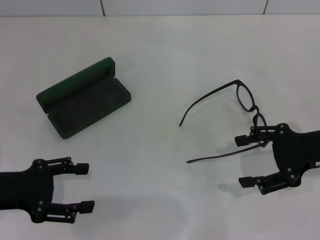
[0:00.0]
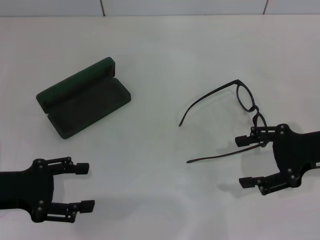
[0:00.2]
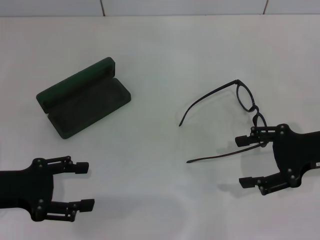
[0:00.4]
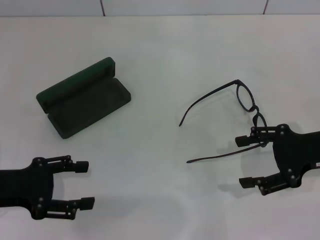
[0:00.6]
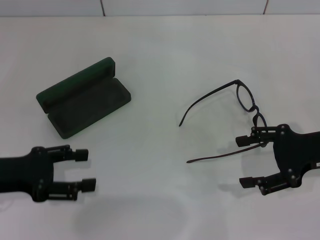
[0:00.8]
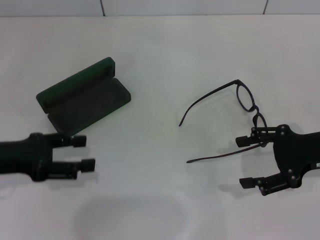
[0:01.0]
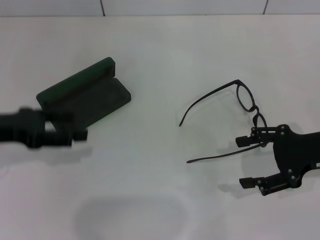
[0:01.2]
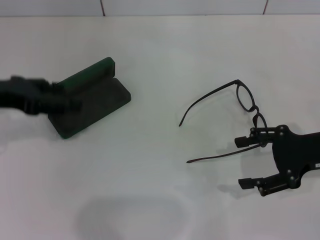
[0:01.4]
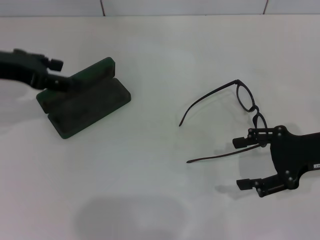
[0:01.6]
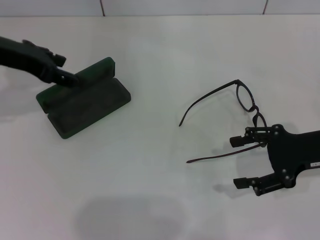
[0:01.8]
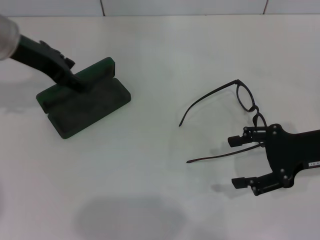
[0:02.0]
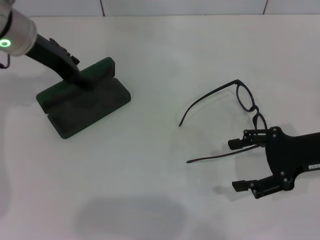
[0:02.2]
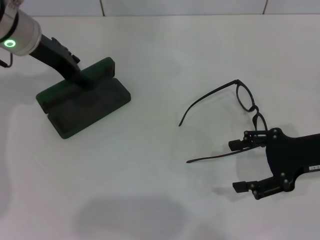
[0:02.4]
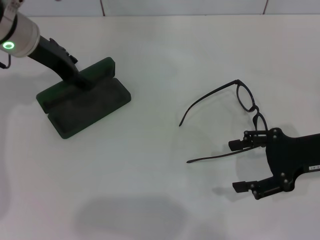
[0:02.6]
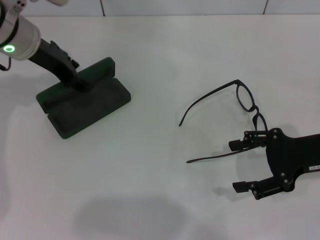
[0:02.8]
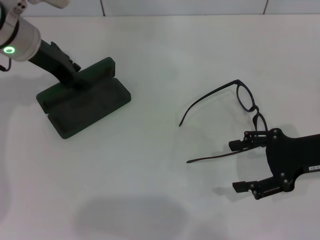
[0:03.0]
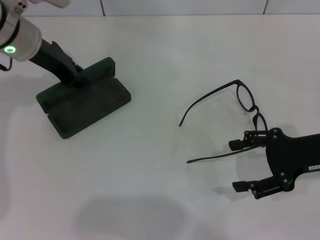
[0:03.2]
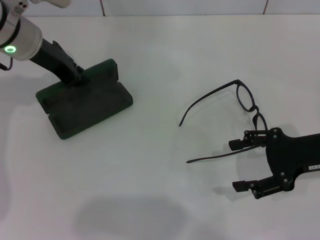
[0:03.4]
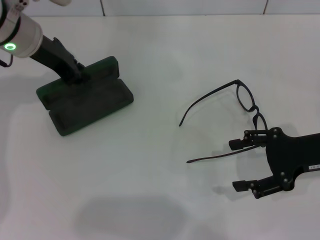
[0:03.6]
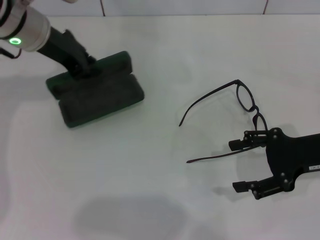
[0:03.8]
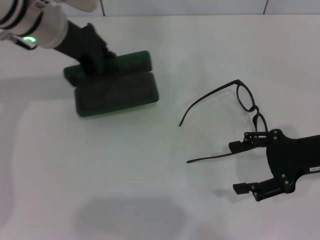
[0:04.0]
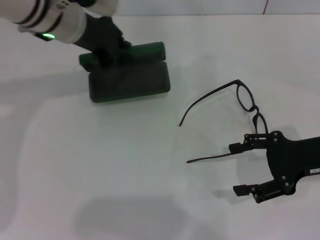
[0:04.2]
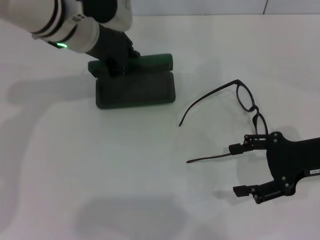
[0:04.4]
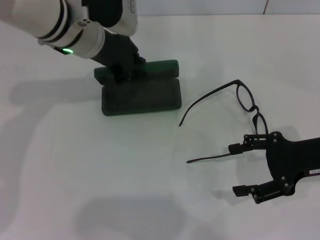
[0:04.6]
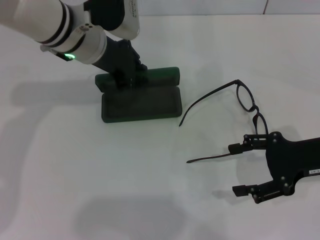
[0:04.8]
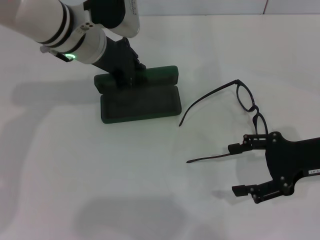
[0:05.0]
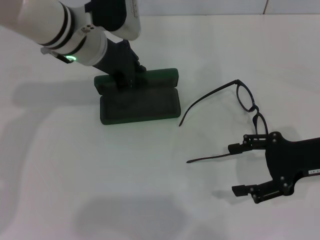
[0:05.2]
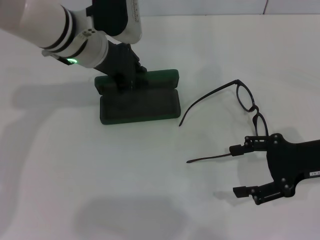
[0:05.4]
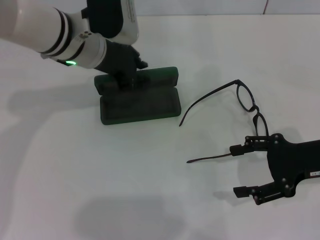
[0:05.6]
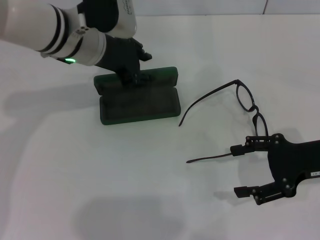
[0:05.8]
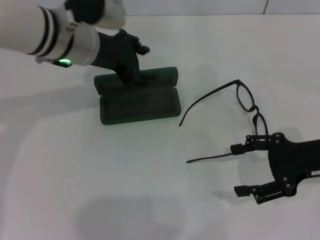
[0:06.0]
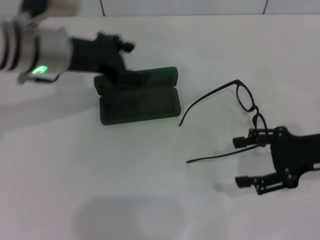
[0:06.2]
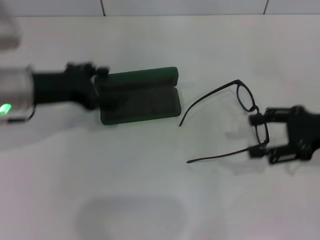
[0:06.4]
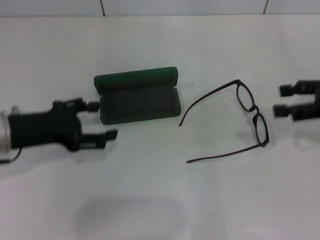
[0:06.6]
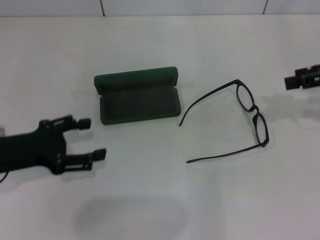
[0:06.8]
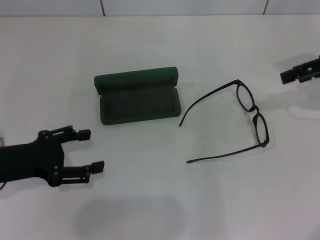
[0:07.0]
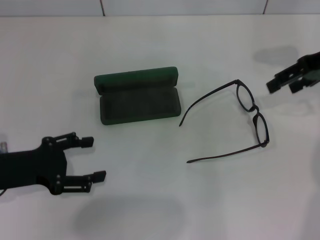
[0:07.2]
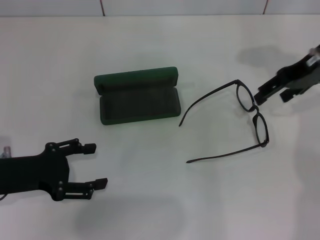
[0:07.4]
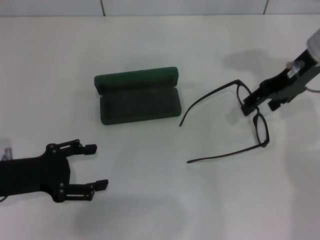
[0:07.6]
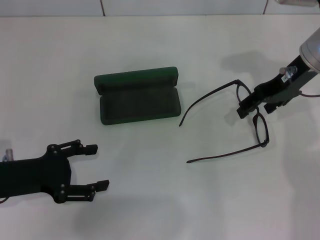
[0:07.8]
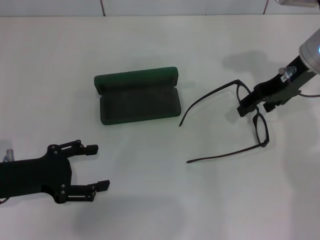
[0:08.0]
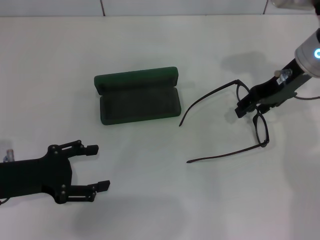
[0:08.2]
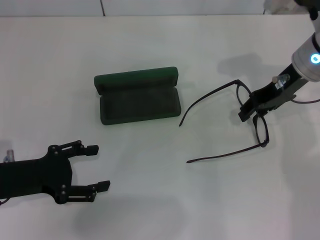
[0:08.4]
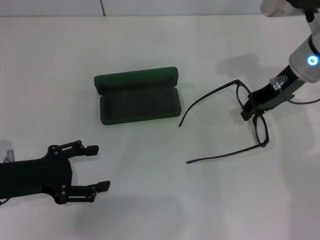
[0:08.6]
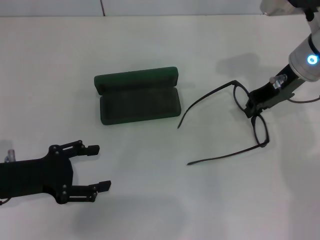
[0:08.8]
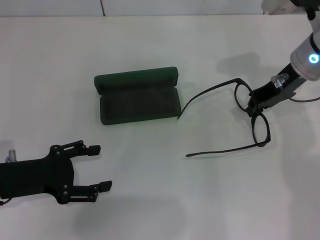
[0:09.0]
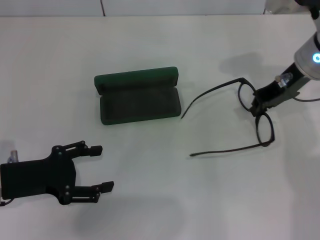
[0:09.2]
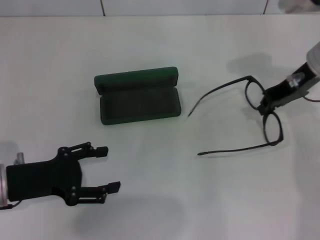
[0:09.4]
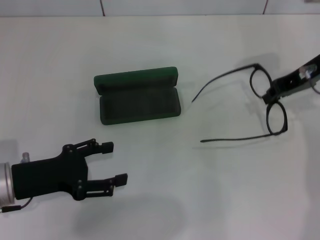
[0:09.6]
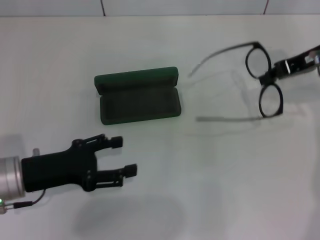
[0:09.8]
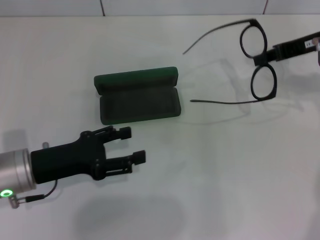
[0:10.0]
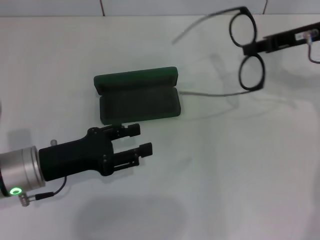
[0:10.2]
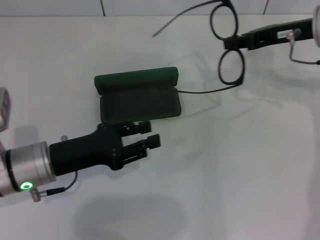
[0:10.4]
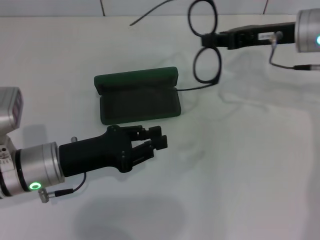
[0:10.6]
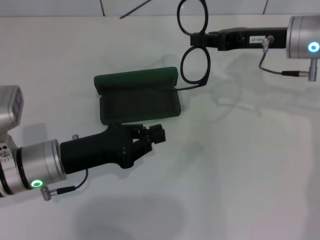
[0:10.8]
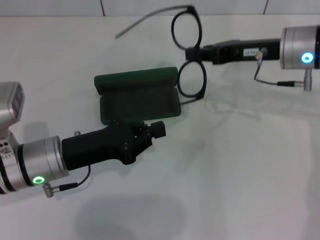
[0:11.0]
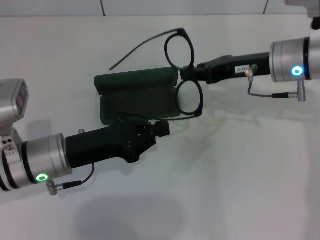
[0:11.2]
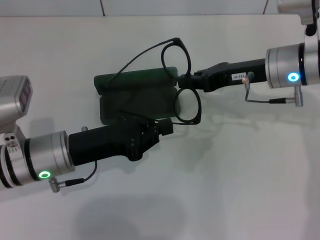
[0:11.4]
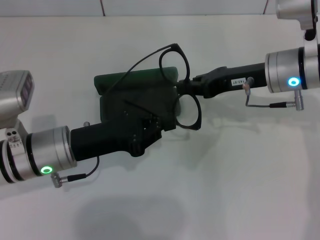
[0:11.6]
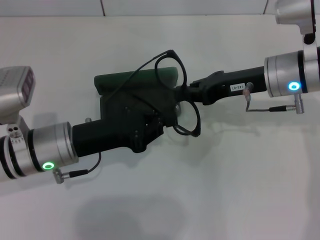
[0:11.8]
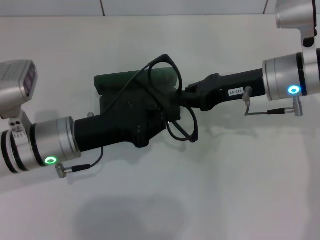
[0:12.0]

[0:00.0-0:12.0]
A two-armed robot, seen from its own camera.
Step, 0:00.0 to 0:03.2: Grab the glasses case with your left hand.
Step, 0:03.6 to 0:05.4: Place the glasses case in the center of the table with your left hand.
Step, 0:05.6 to 0:08.8: Grab the eyeglass frame with your right hand.
0:00.0 to 0:01.6: The left gripper moves forward and upward, about 15 cm.
0:01.6 to 0:03.0: The left gripper goes roughly 10 cm forward and to the right.
0:03.0 to 0:04.4: The left gripper moves to the right, about 5 cm, and closes.
0:04.4 to 0:06.0: There are only small adjustments of the grippers.
0:06.0 to 0:07.6: The left gripper shifts approximately 25 cm backward, to the left and downward, and opens up. The right gripper heads forward, upward and to the left, covering about 15 cm.
0:07.6 to 0:09.0: The right gripper closes up.
0:09.0 to 0:10.4: The left gripper travels to the right by roughly 5 cm.
0:10.4 to 0:12.0: The right gripper is displaced to the left and downward by about 10 cm. Meanwhile the left gripper closes.

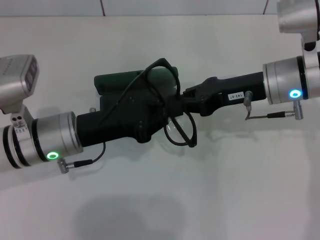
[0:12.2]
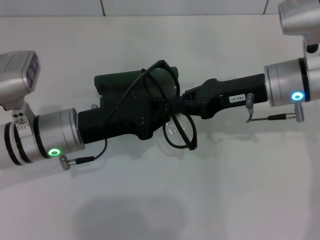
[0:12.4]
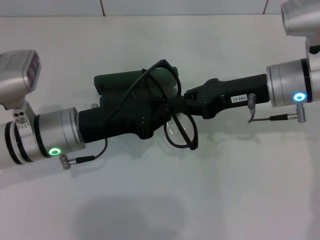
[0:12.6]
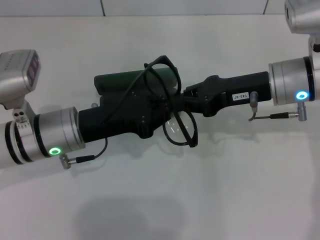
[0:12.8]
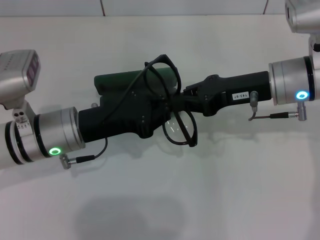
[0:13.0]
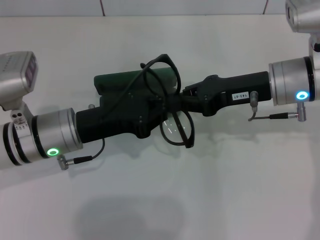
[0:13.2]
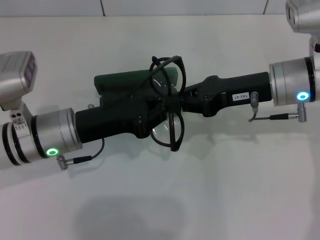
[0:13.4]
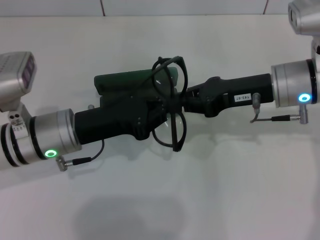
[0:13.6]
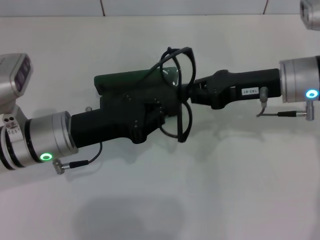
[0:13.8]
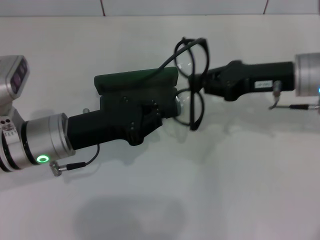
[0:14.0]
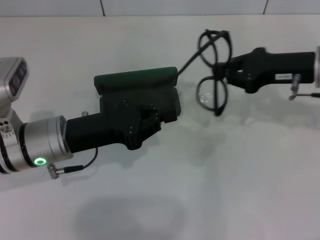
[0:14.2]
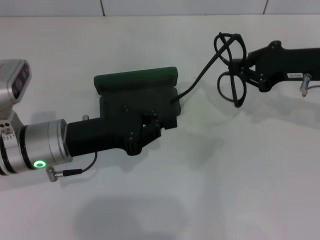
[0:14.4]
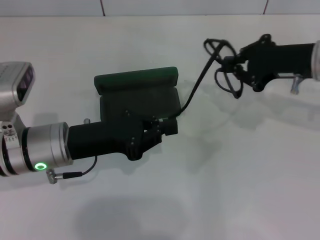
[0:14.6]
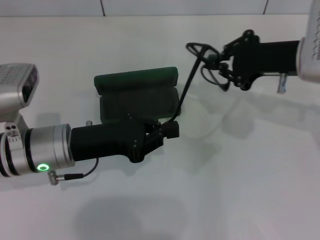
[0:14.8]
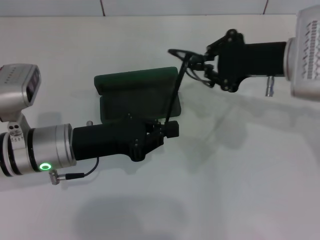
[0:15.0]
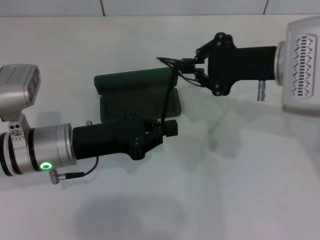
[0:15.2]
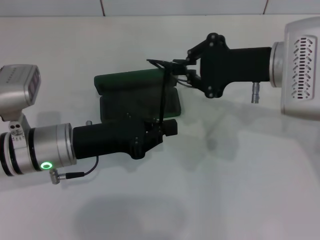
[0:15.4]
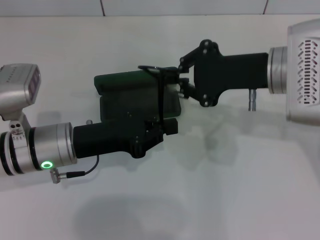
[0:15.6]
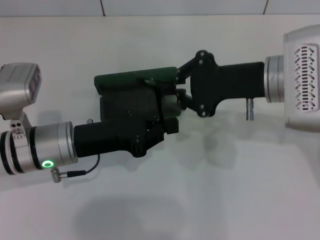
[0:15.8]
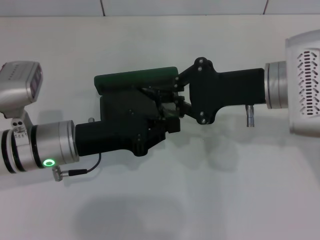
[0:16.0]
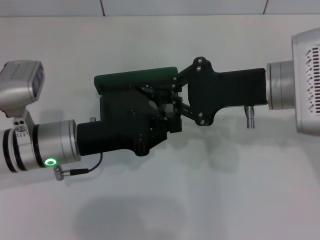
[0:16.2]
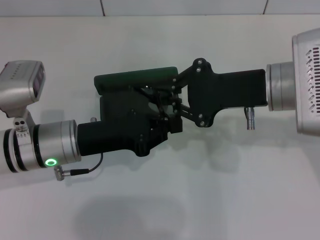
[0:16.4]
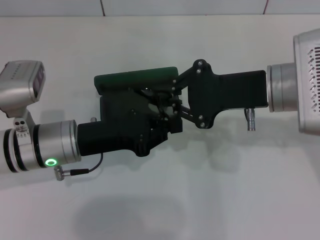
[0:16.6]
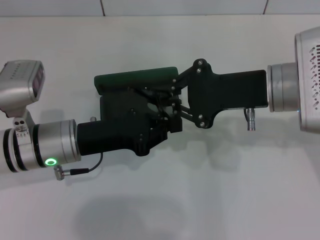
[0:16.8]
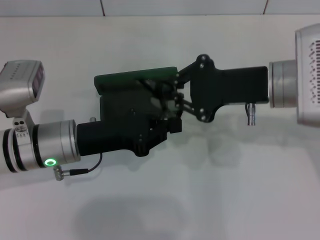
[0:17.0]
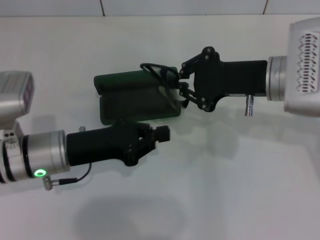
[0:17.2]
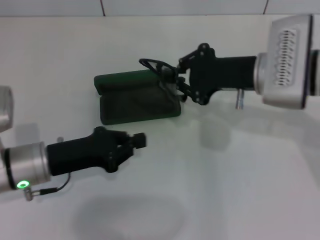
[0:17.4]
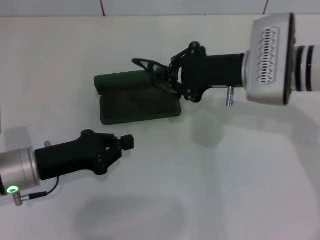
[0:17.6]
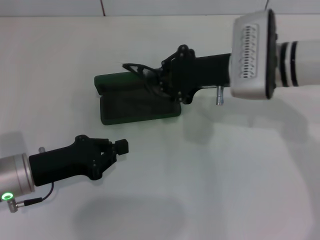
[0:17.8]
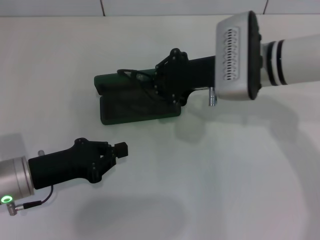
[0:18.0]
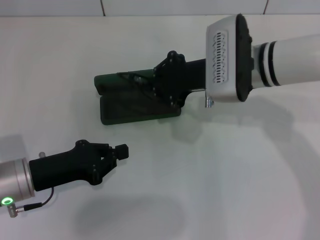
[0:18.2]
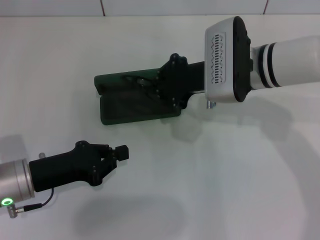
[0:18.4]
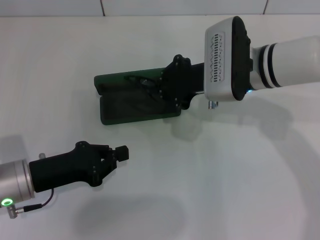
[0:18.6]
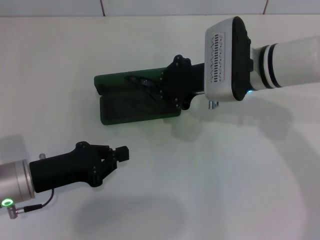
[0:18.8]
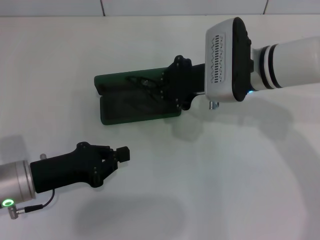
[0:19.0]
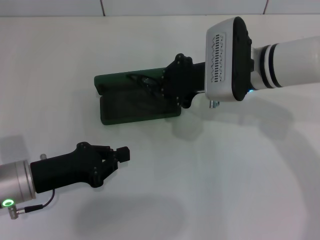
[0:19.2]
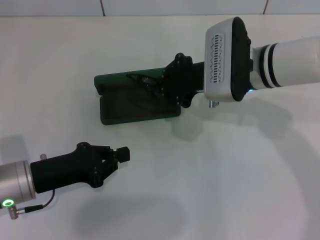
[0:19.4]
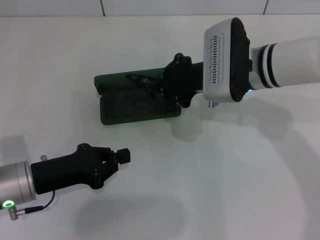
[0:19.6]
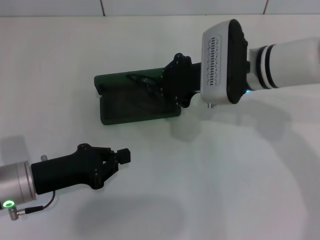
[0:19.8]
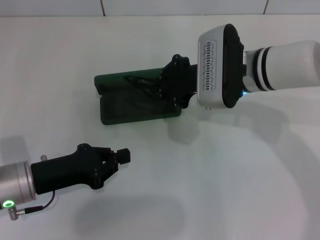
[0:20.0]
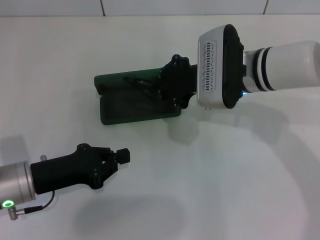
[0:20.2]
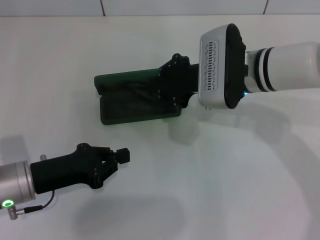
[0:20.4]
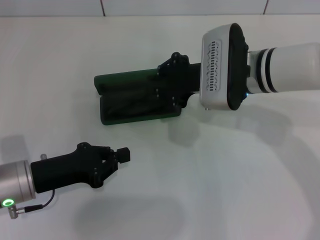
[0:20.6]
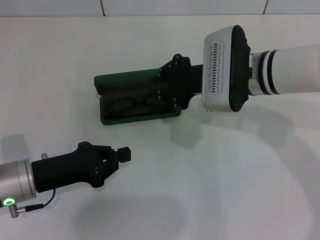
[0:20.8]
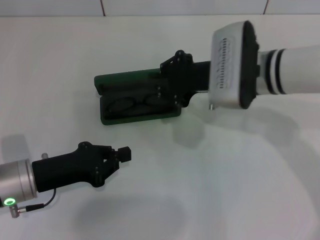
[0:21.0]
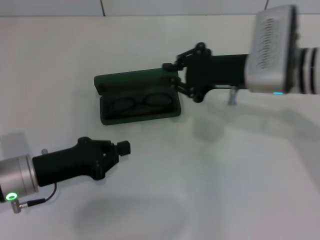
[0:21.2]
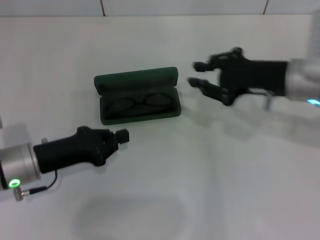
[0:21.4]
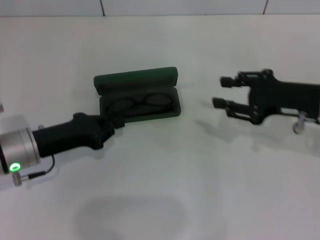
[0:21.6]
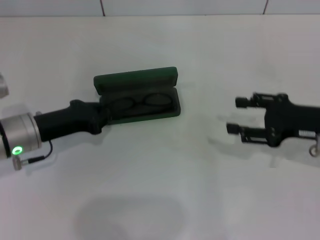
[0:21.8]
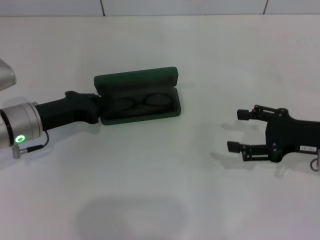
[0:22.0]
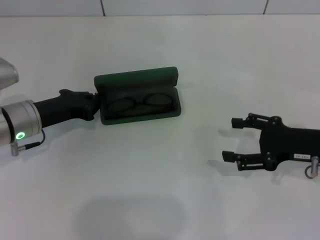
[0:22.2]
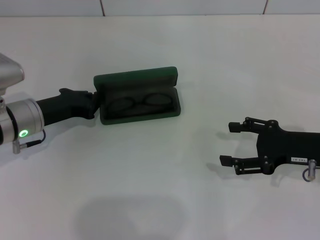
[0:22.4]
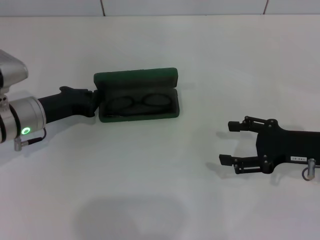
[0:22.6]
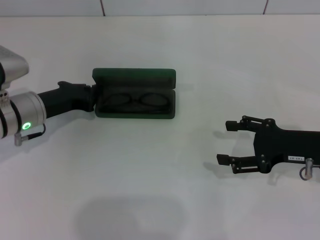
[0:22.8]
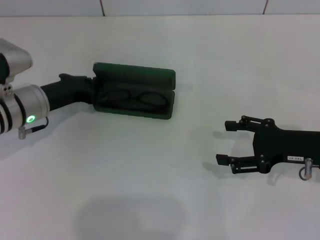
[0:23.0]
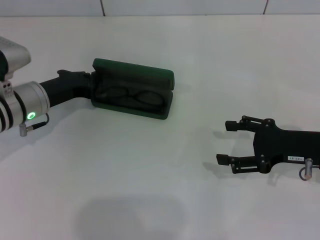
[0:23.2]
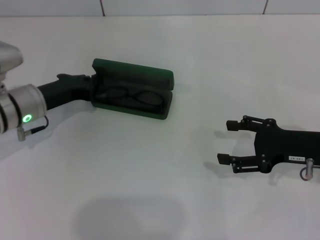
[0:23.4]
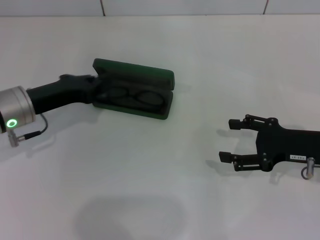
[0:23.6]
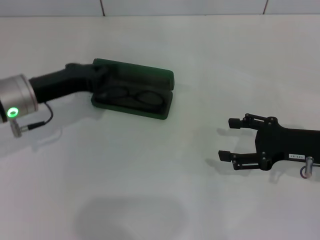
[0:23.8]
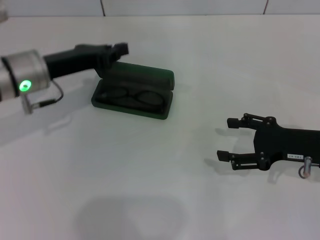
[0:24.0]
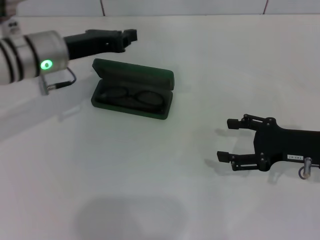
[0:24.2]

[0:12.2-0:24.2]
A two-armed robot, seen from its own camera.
Step, 0:12.2 to 0:16.8: Fold the frame with your left hand.
Step, 0:17.0 to 0:20.4: Put the glasses into the case with your right hand.
0:12.2 to 0:13.8: There are only small adjustments of the grippers.
0:15.2 to 0:16.6: There are only small adjustments of the grippers.
0:16.6 to 0:18.2: The left gripper is displaced to the left by roughly 5 cm; the right gripper moves forward and to the left, some 10 cm.
0:18.2 to 0:21.2: There are only small adjustments of the grippers.
0:21.2 to 0:22.6: The right gripper travels to the right, downward and backward by approximately 15 cm, and opens up, while the left gripper is displaced forward by some 10 cm.
0:22.6 to 0:24.2: The left gripper travels upward and to the right by roughly 10 cm.
